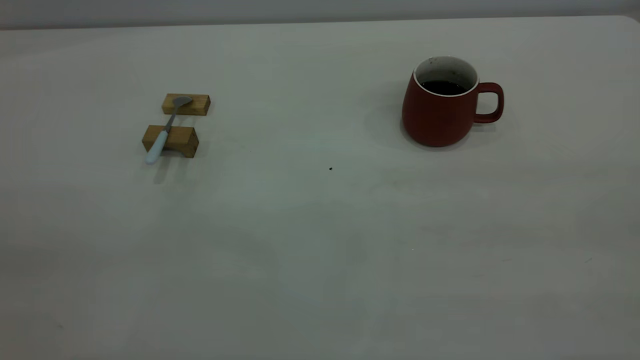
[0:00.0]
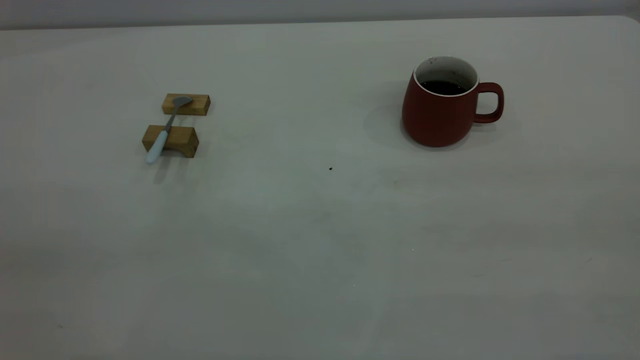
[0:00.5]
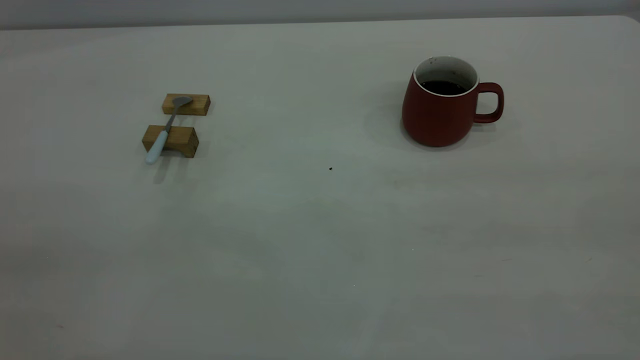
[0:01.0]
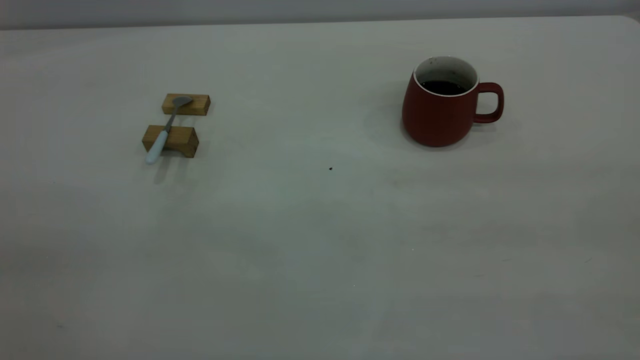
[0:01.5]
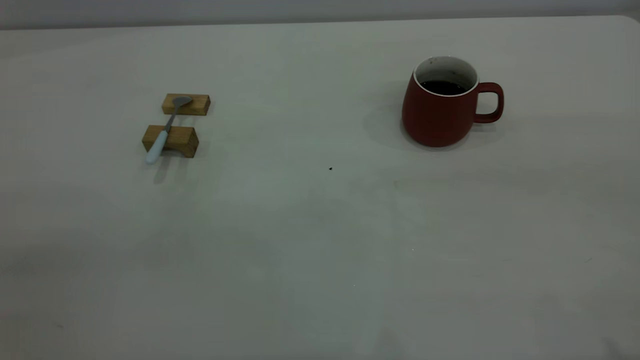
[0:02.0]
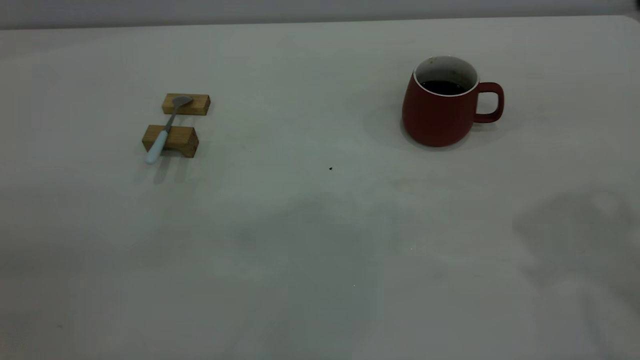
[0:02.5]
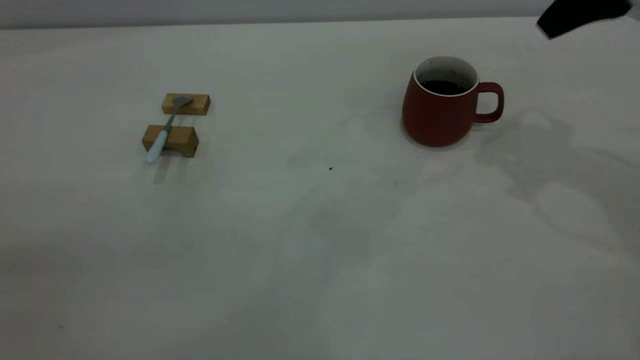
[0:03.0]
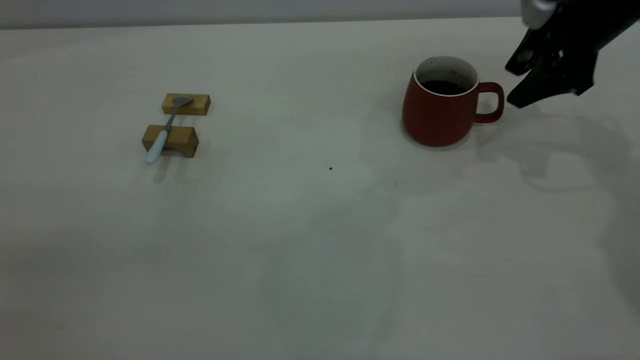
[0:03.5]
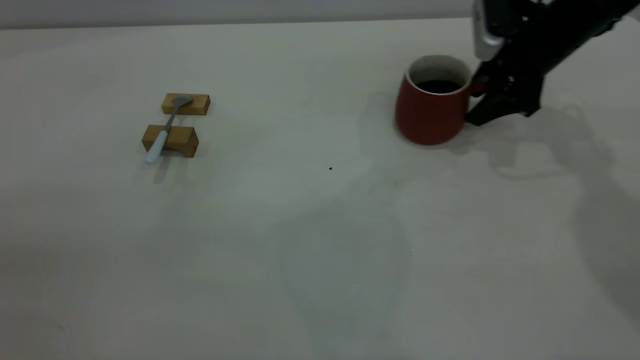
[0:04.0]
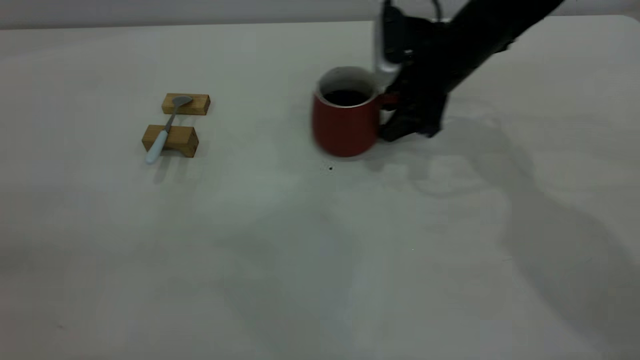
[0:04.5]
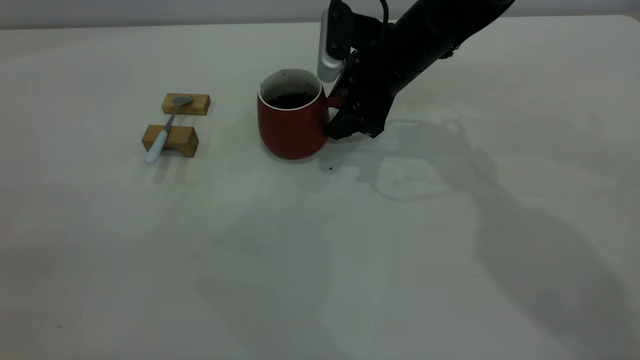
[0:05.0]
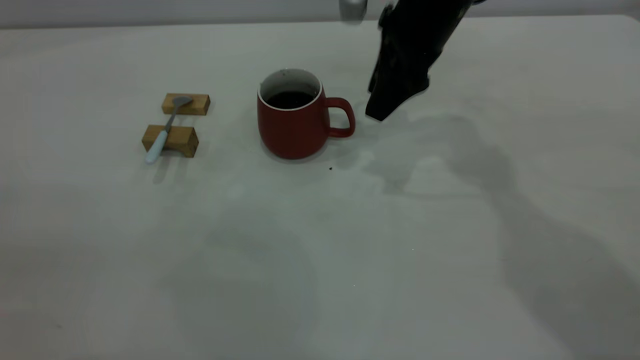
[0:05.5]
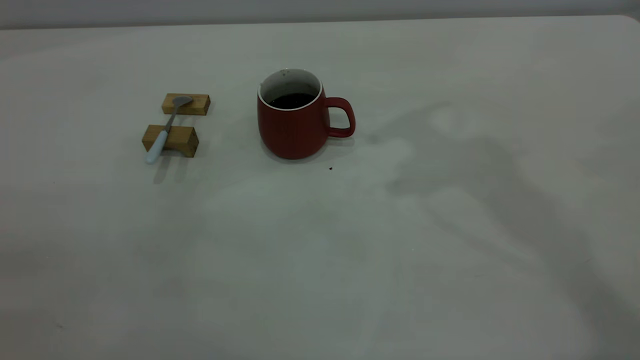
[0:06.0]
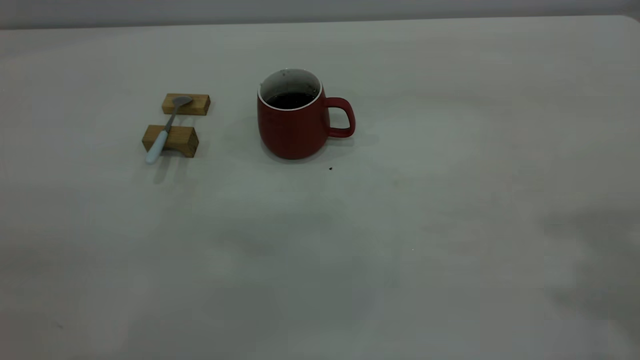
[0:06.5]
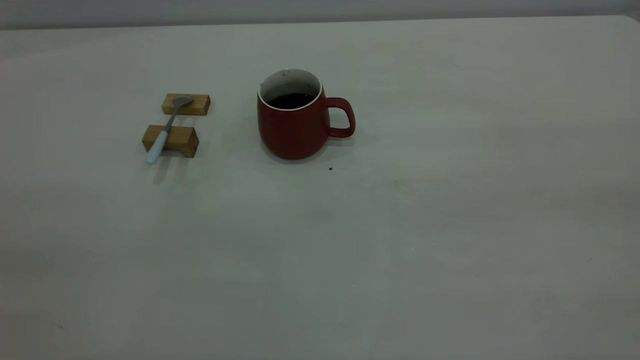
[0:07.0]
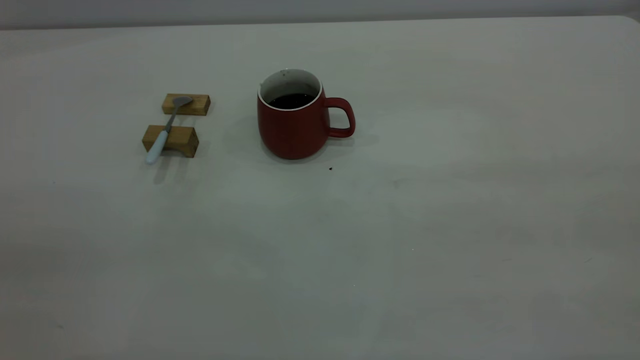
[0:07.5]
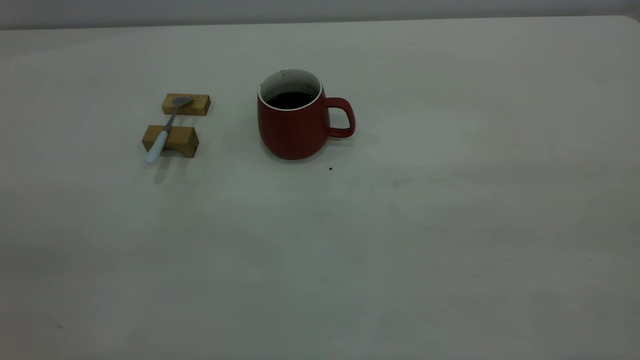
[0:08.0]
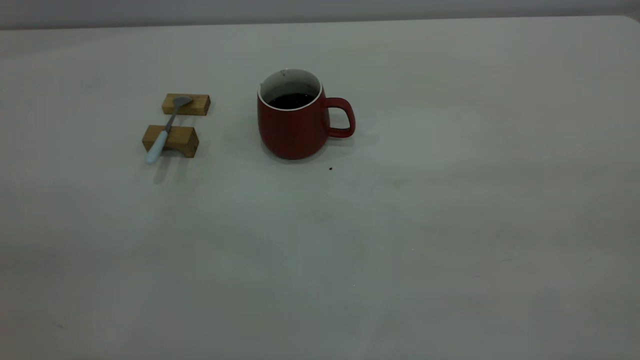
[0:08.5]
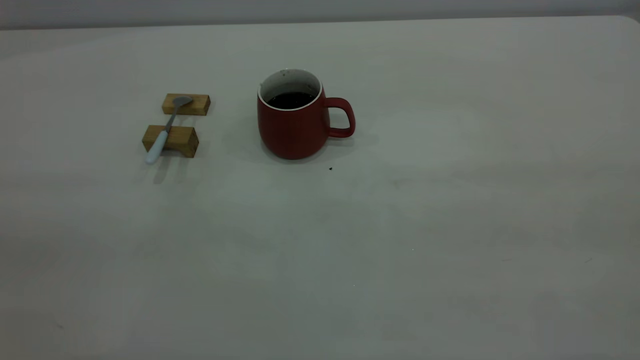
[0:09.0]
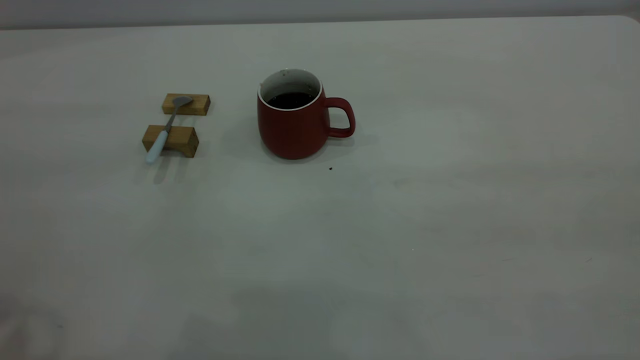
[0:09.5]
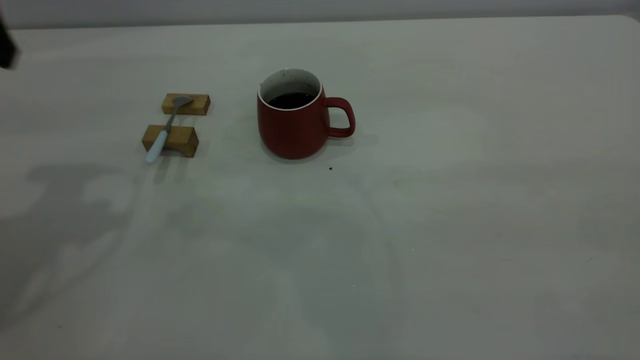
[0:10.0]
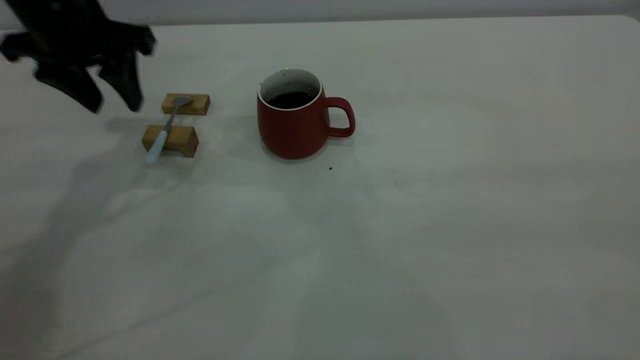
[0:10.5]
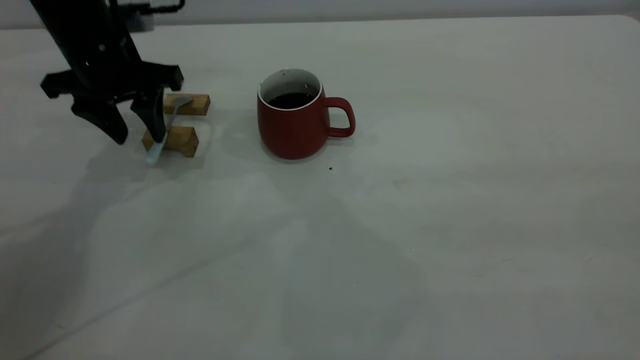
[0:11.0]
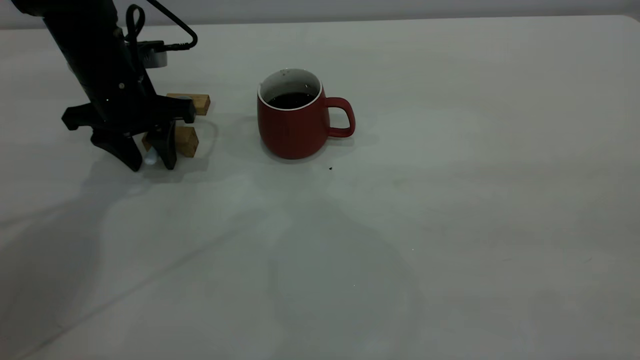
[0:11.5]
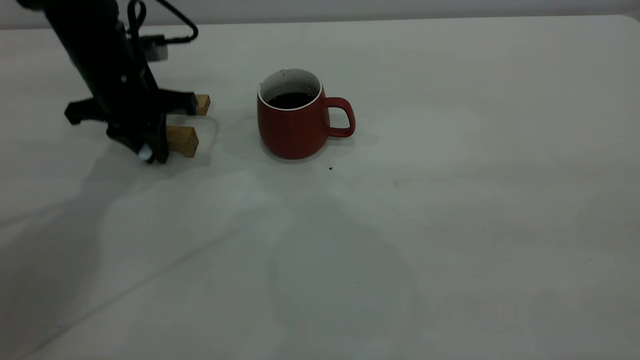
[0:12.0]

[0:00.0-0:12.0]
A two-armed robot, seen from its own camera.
Step, 0:00.0 to 0:05.5: Move the cup with coffee to the center of view.
0:02.0 to 0:04.0: The right gripper travels forward and downward by approximately 50 cm, and opens up.
0:04.0 to 0:06.0: The right gripper shifts roughly 30 cm upward, and closes.
0:10.0 to 0:12.0: The left gripper heads downward and forward, covering approximately 20 cm, and closes its fingers.

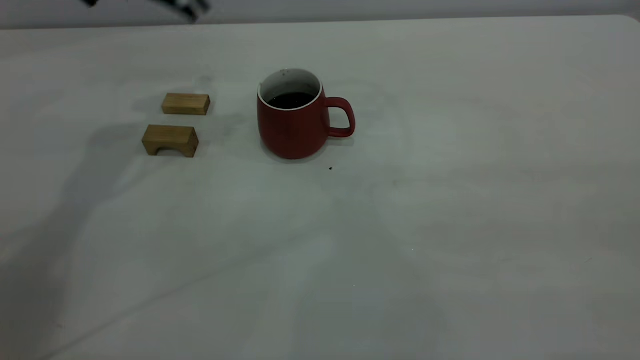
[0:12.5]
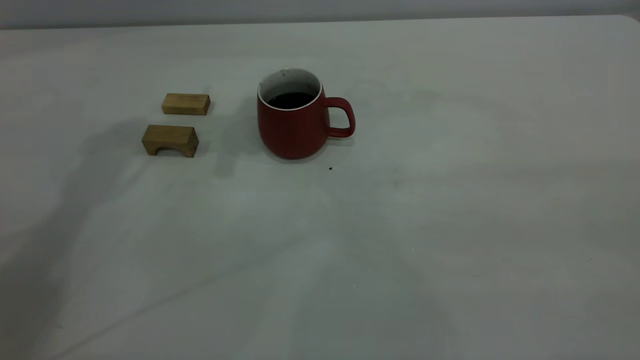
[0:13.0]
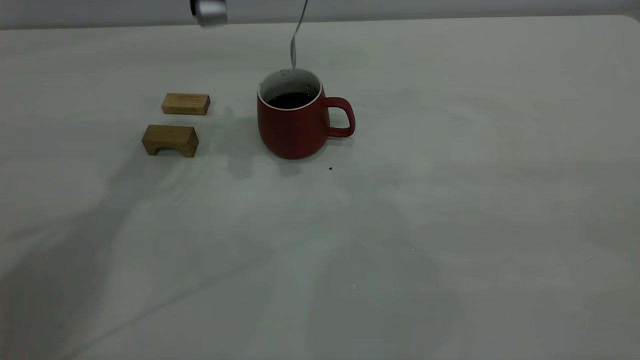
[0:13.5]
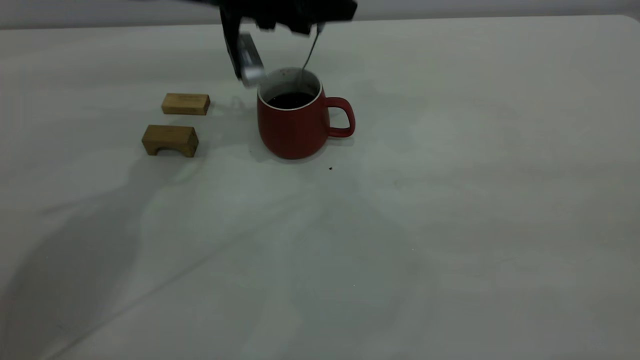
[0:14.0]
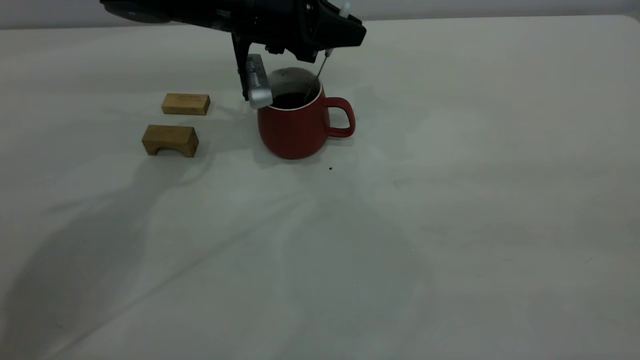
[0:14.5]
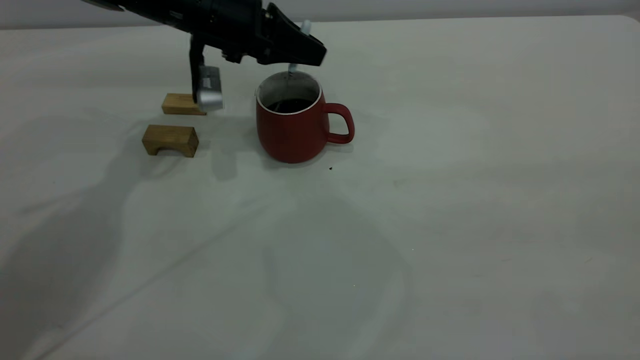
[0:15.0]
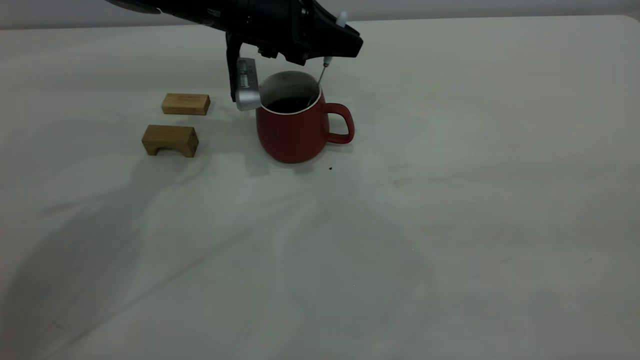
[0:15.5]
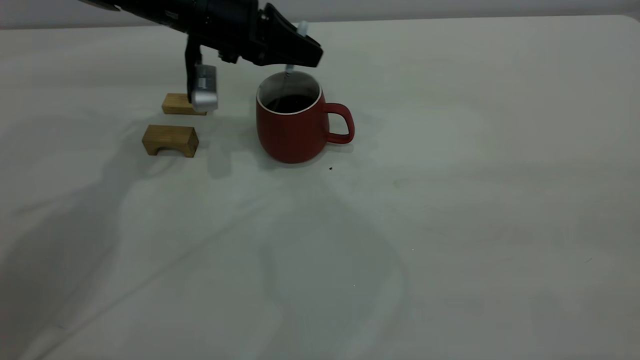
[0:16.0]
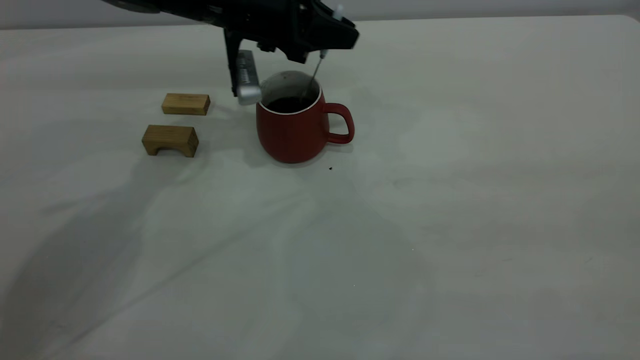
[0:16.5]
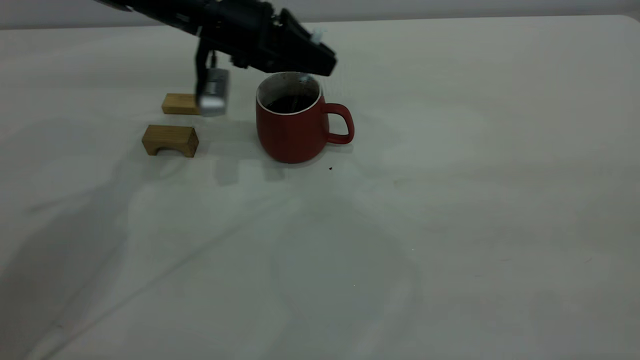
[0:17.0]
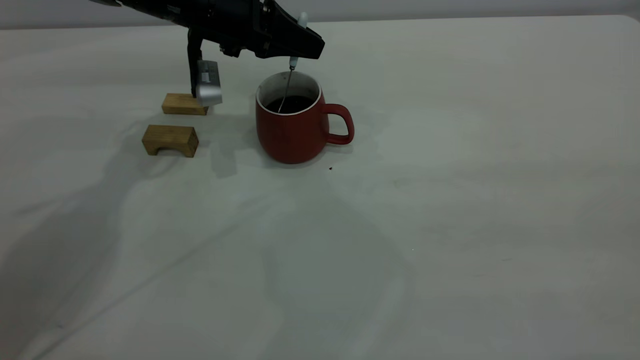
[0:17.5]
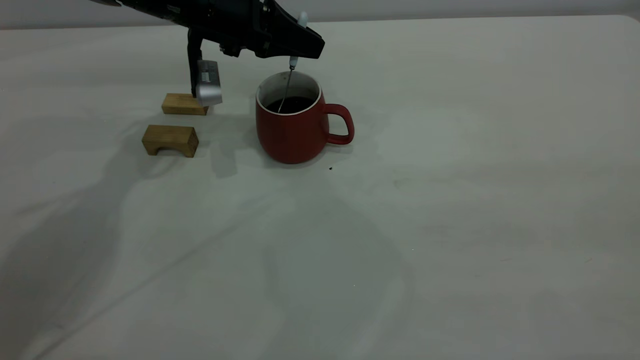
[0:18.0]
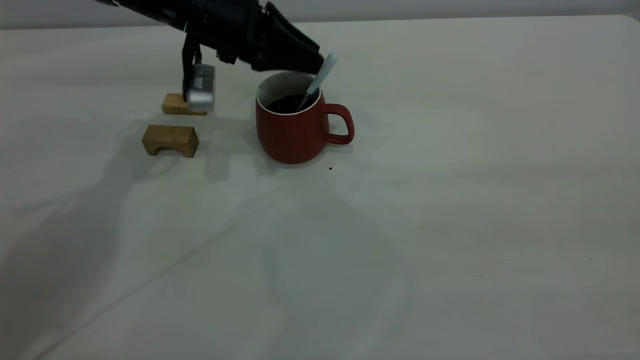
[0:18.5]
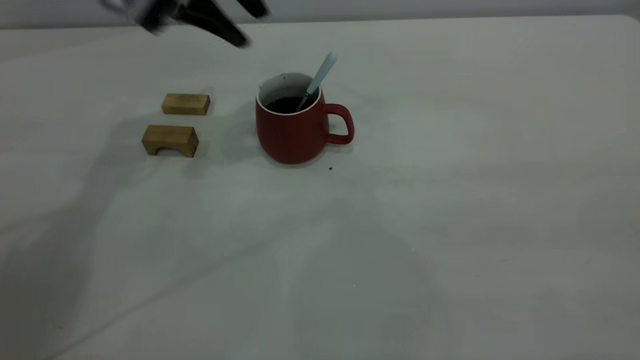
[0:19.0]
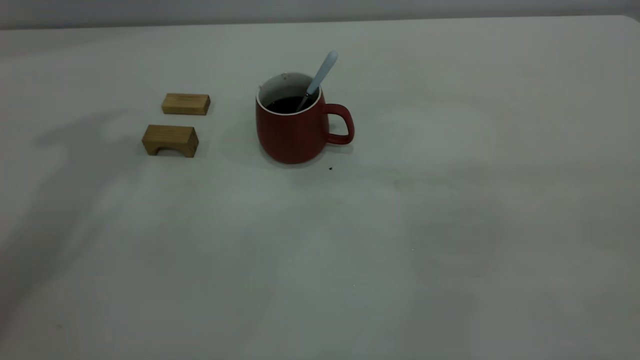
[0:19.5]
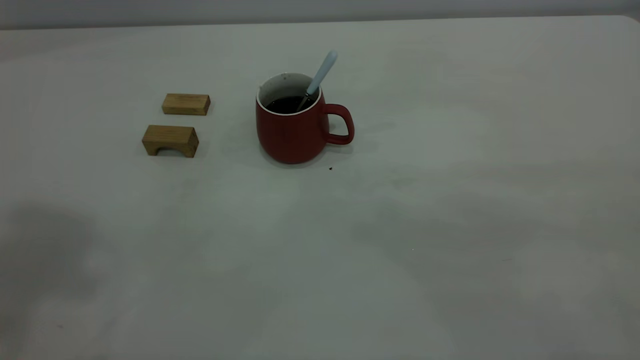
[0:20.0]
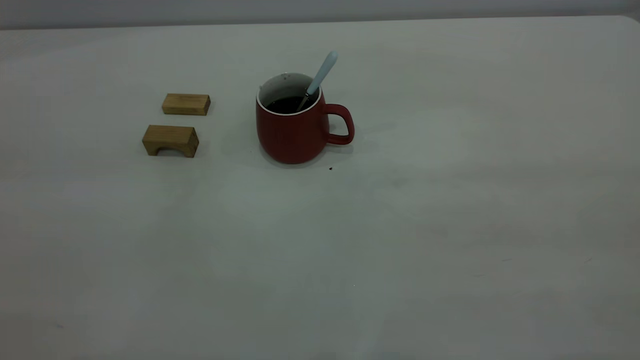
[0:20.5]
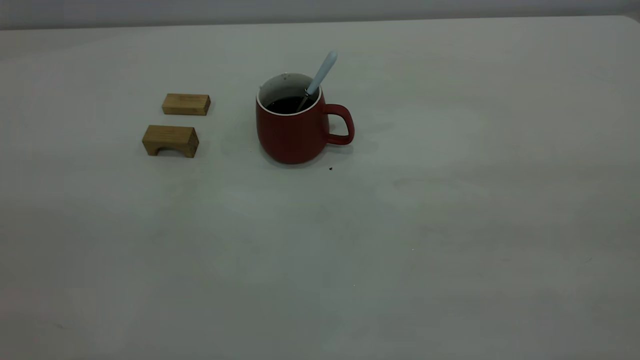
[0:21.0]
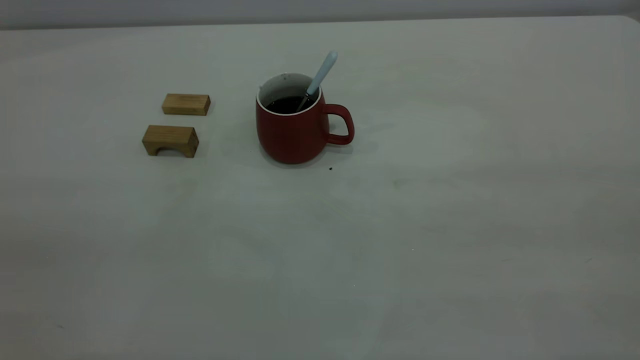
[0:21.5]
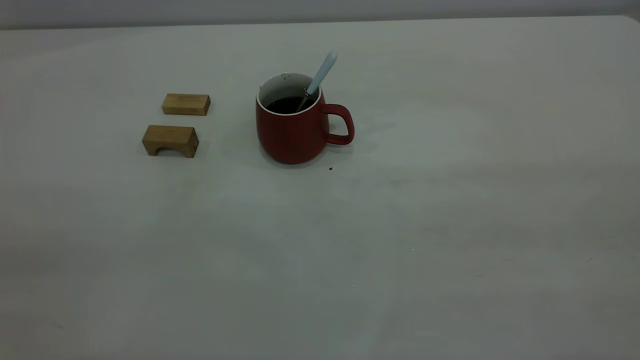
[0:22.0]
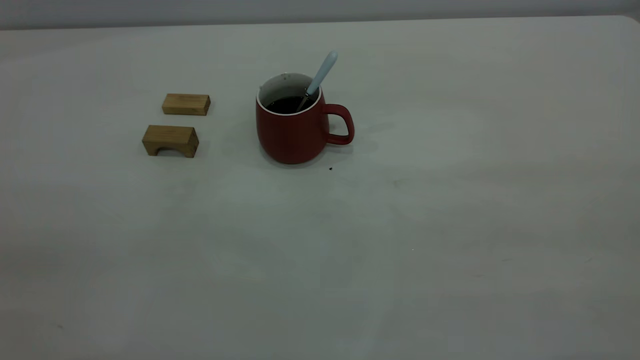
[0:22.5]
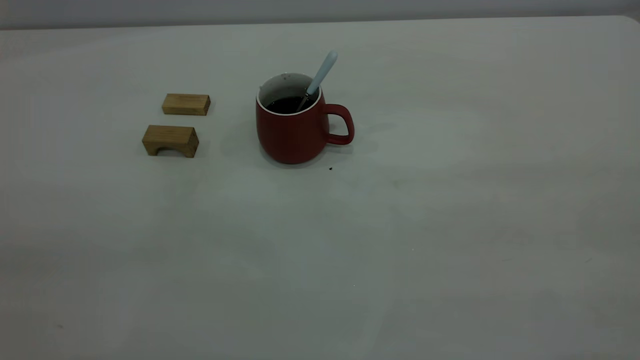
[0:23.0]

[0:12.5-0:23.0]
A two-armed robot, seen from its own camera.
Step, 0:12.5 to 0:18.5: Stir the coffee in the cup.
0:12.5 to 0:14.5: The left gripper travels downward and to the right by approximately 15 cm.
0:14.5 to 0:16.5: The left gripper swings left and right, about 5 cm each way, with 3 reversals.
0:16.5 to 0:19.0: The left gripper goes approximately 15 cm upward and to the left, and opens its fingers.
0:19.0 to 0:21.0: The left gripper is displaced backward by about 40 cm.
